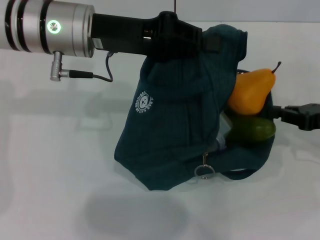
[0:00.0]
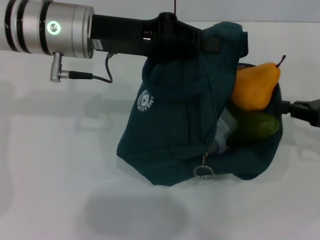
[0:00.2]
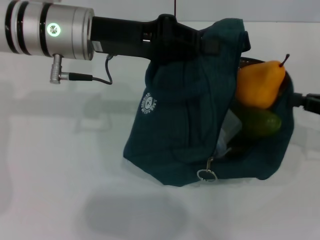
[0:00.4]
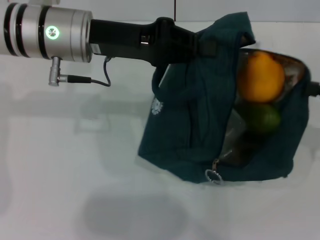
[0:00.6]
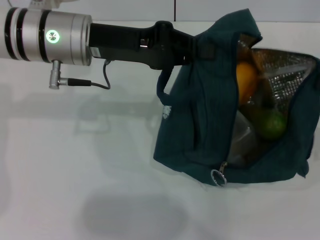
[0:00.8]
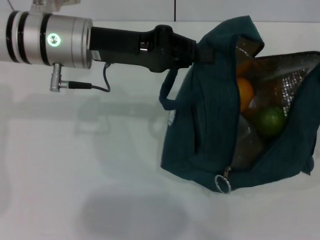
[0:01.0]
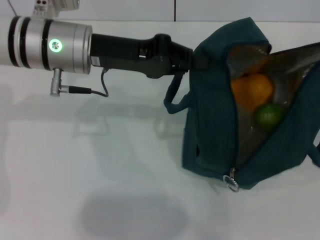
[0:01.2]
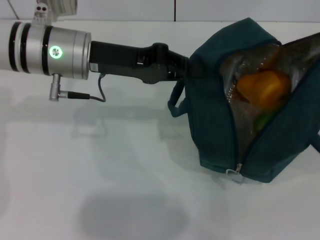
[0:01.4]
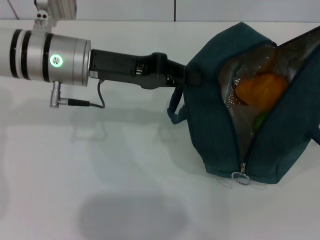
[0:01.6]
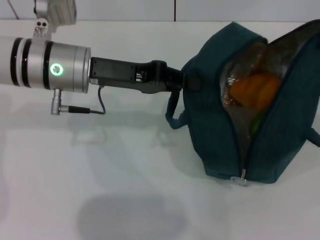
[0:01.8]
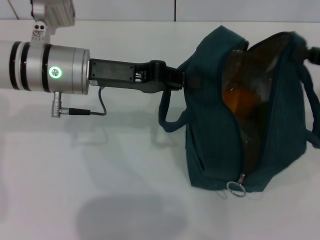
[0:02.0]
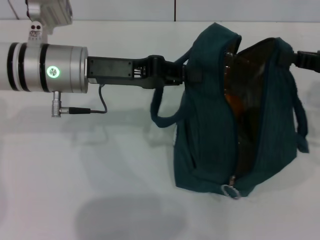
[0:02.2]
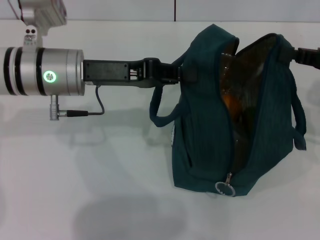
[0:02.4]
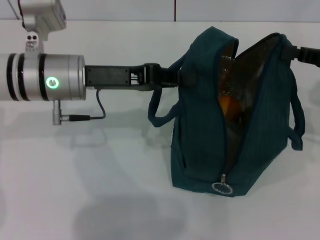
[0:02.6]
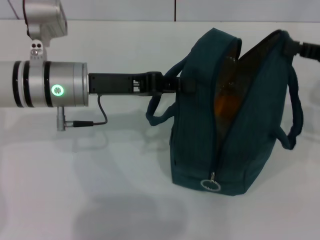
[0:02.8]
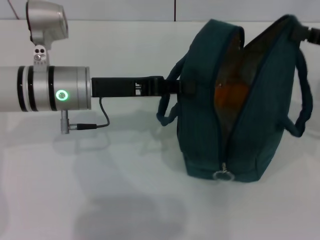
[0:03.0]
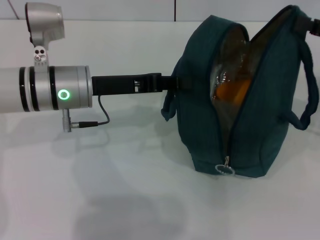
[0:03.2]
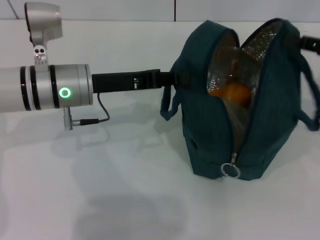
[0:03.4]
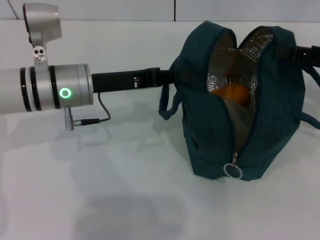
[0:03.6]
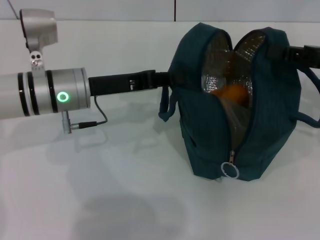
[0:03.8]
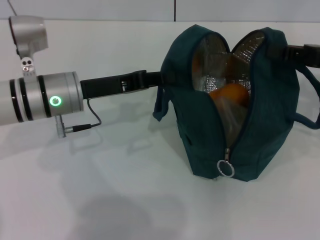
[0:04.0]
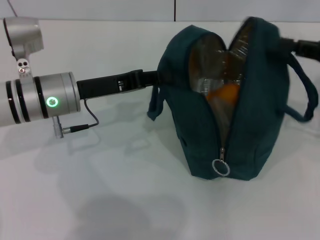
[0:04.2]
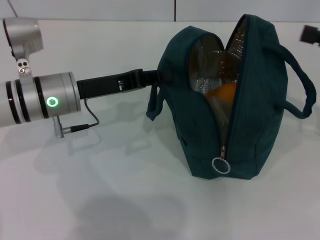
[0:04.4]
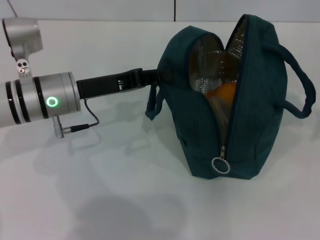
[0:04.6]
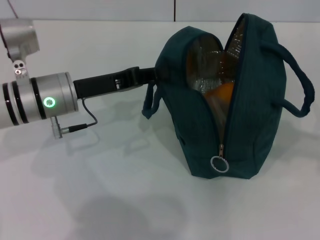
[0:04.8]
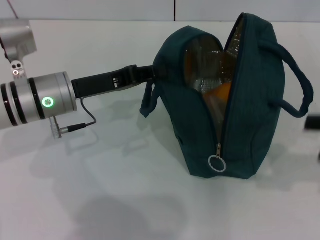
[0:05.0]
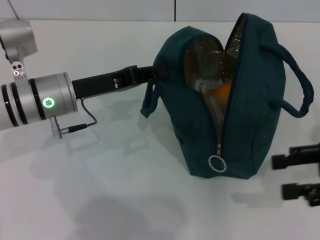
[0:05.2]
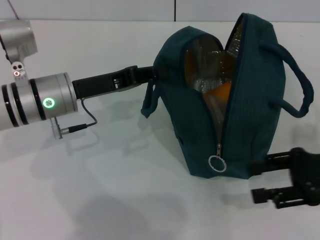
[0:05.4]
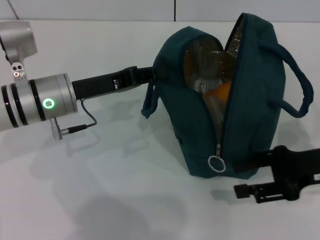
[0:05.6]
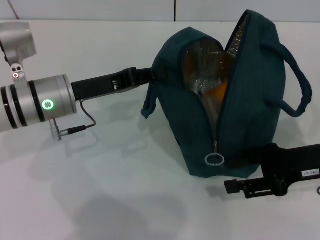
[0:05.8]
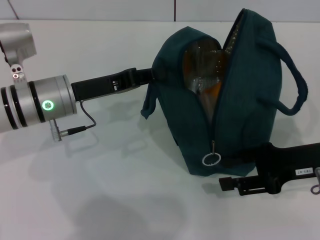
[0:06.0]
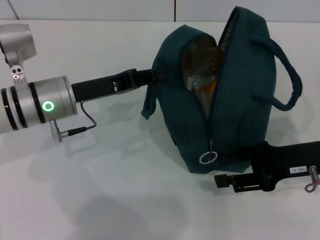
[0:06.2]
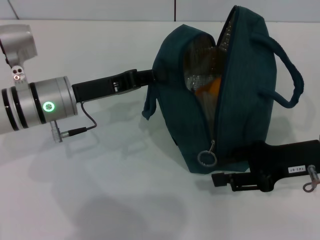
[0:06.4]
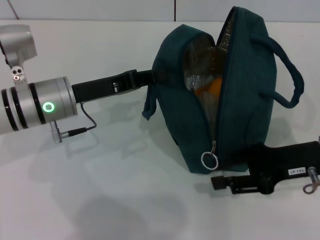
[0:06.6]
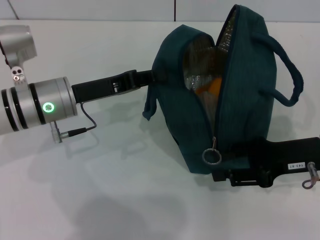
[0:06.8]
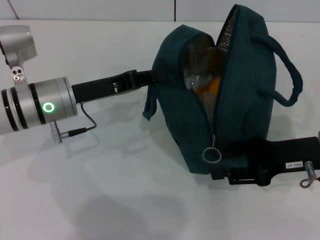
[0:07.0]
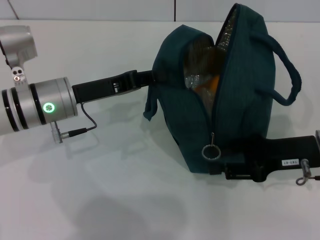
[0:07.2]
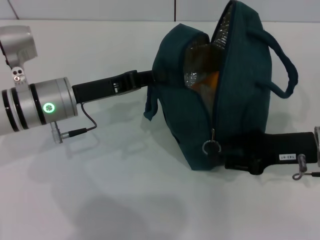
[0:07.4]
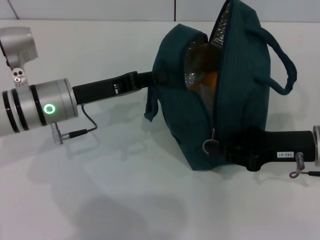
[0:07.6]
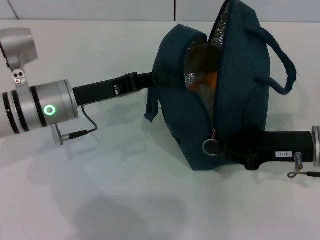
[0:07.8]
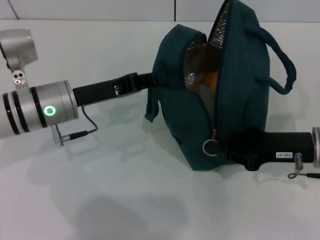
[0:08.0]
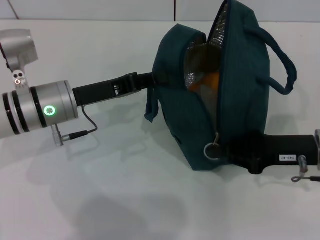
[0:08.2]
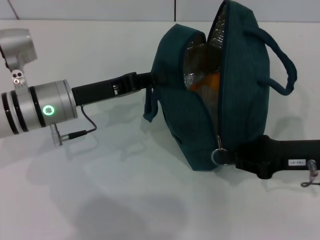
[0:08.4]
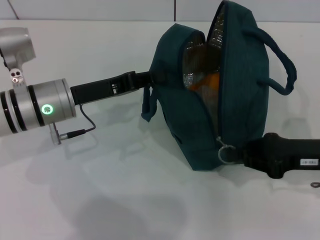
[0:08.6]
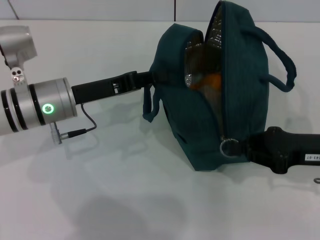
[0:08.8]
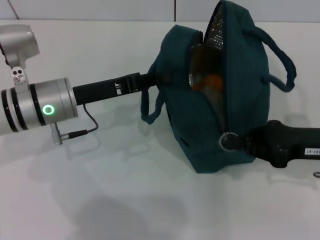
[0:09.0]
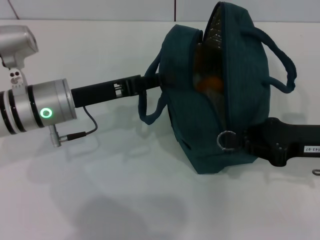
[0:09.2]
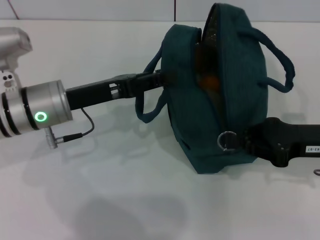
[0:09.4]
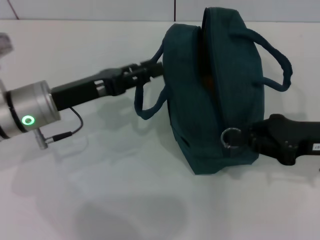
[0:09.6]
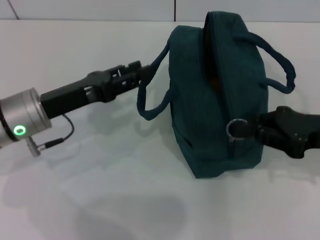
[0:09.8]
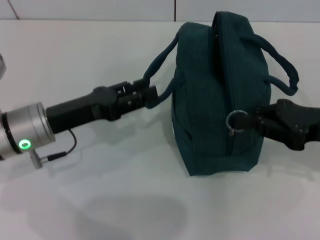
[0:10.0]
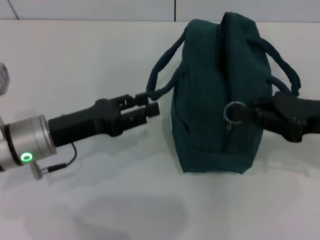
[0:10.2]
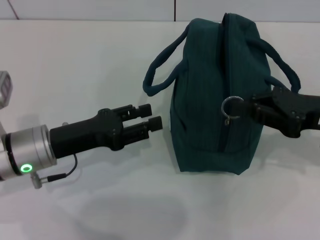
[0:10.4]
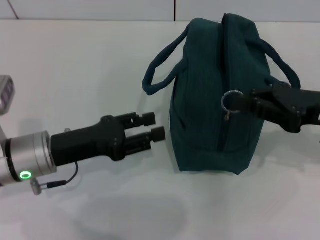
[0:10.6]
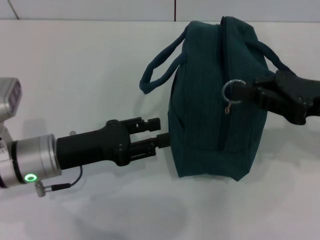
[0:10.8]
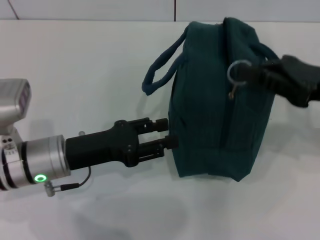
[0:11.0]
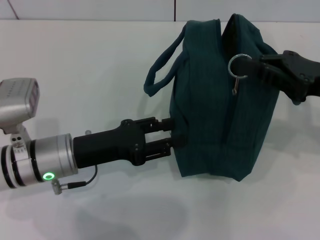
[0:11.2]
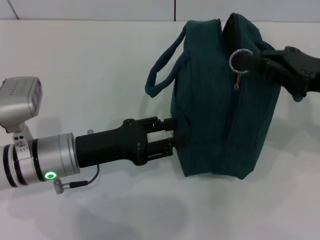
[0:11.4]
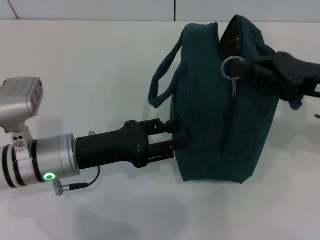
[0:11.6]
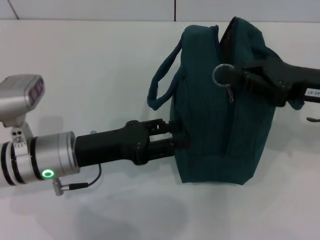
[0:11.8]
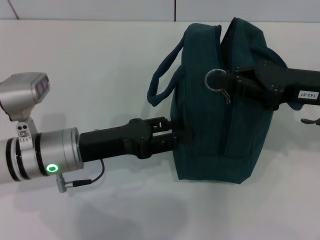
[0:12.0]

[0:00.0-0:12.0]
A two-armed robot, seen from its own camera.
Step, 0:00.0 to 0:04.2: Hold the lunch bag with your right hand.
0:00.0 to 0:01.6: The right gripper is displaced upward and to the right by about 10 cm.
0:01.6 to 0:03.0: The right gripper shifts by approximately 5 cm.
0:03.0 to 0:04.4: The grippers stay close to where they were, moving slightly.
0:04.4 to 0:06.0: The right gripper moves to the left and downward, roughly 10 cm, and opens up.
0:06.0 to 0:07.6: The grippers make only small movements.
0:07.6 to 0:09.0: The right gripper closes up.
0:09.0 to 0:10.4: The left gripper heads backward, covering about 5 cm, and opens.

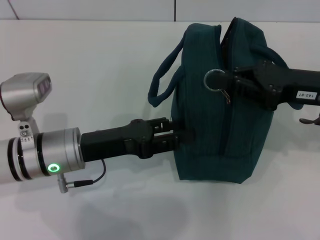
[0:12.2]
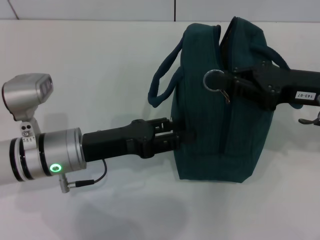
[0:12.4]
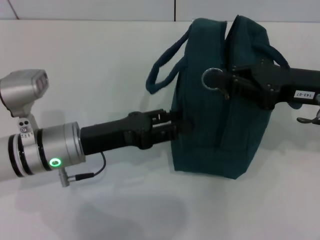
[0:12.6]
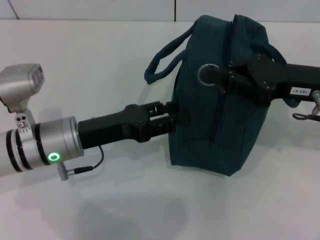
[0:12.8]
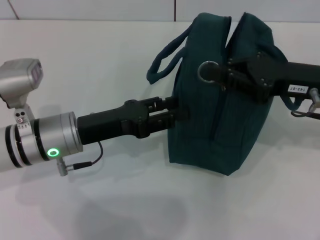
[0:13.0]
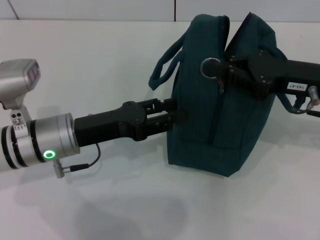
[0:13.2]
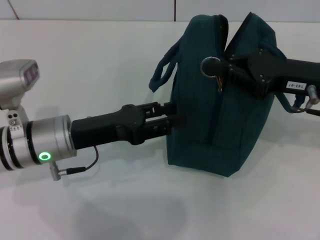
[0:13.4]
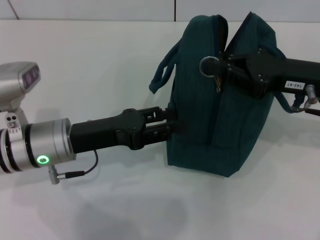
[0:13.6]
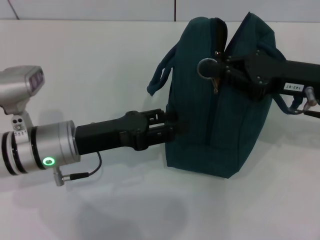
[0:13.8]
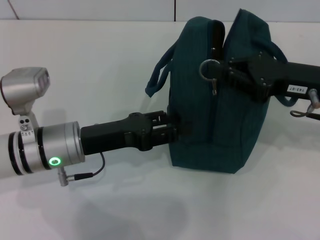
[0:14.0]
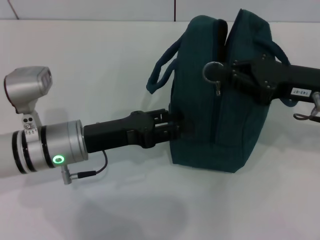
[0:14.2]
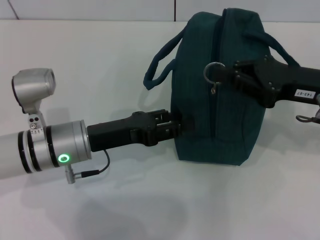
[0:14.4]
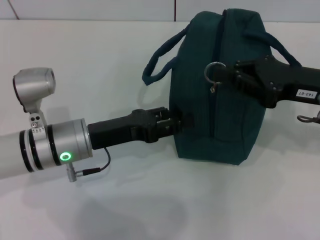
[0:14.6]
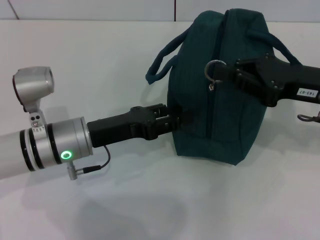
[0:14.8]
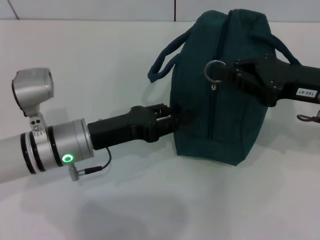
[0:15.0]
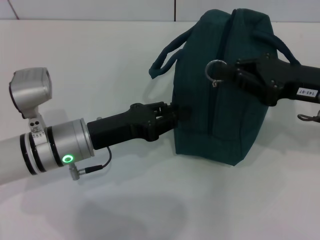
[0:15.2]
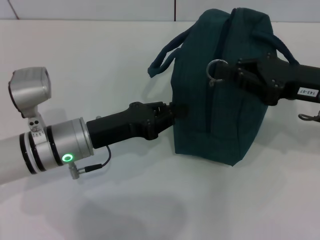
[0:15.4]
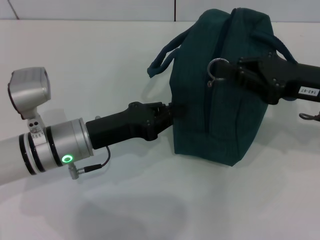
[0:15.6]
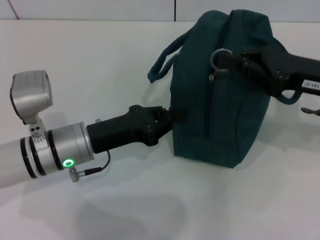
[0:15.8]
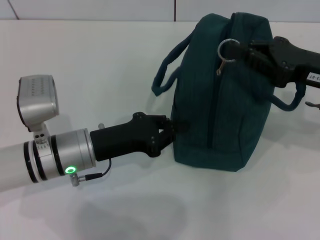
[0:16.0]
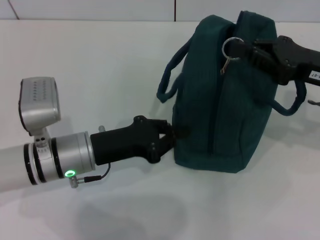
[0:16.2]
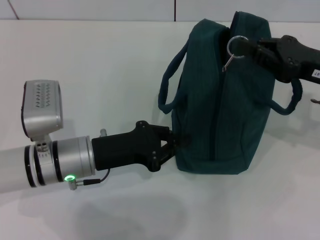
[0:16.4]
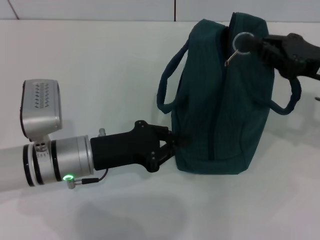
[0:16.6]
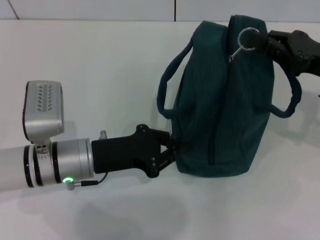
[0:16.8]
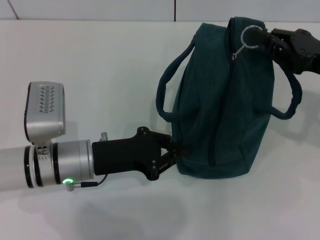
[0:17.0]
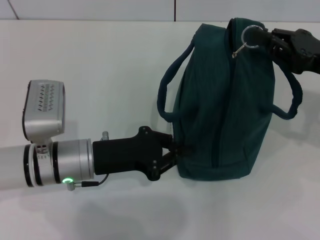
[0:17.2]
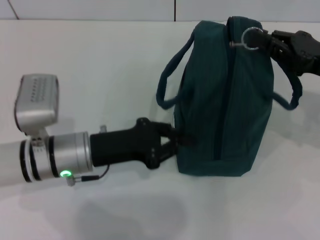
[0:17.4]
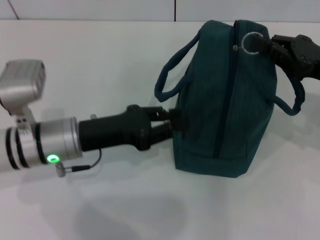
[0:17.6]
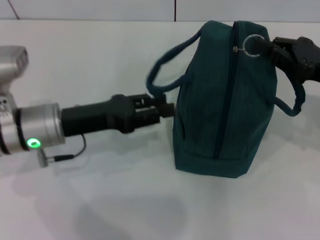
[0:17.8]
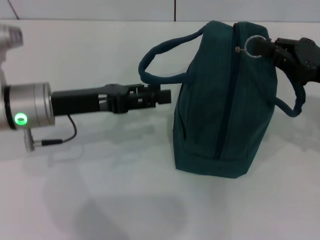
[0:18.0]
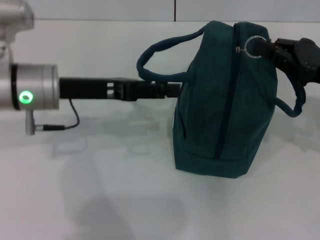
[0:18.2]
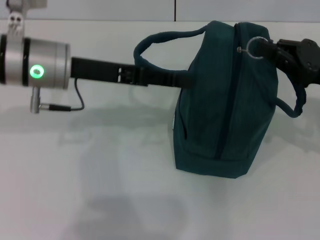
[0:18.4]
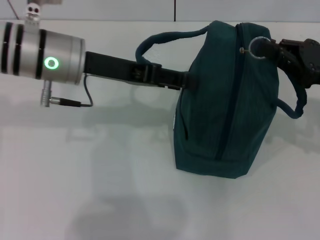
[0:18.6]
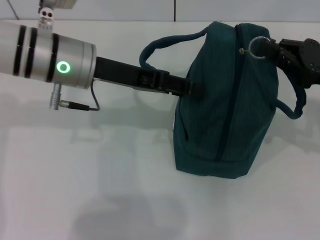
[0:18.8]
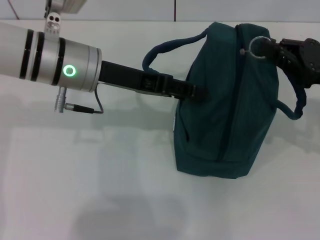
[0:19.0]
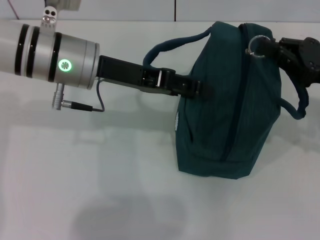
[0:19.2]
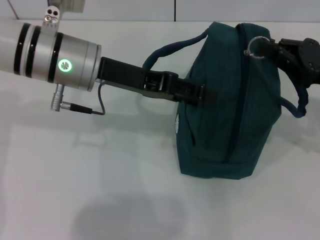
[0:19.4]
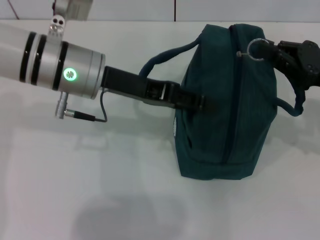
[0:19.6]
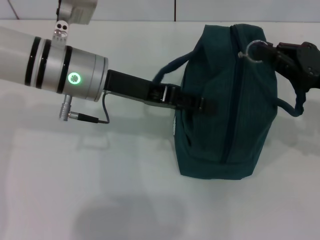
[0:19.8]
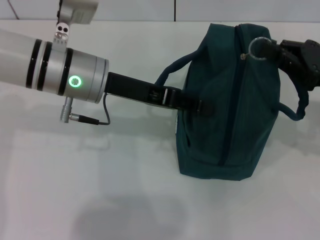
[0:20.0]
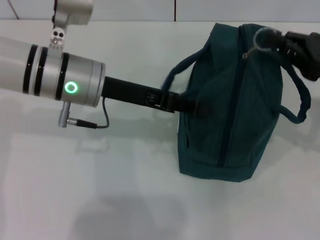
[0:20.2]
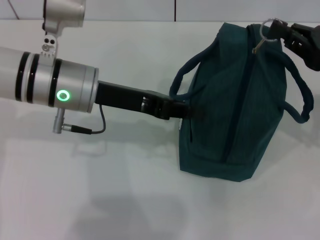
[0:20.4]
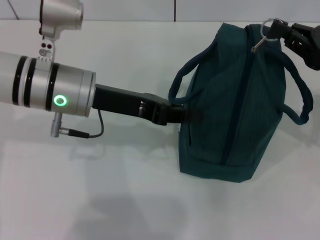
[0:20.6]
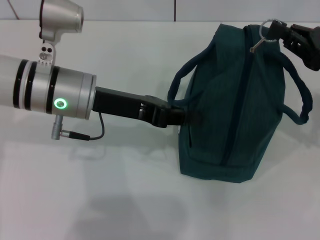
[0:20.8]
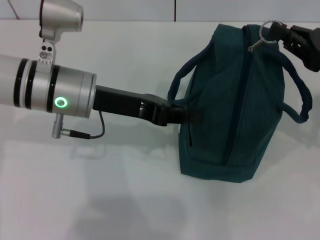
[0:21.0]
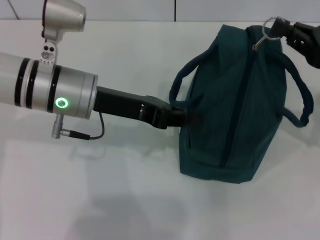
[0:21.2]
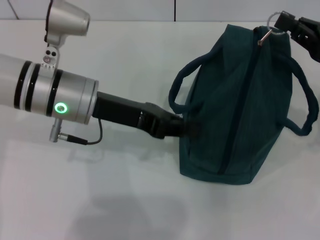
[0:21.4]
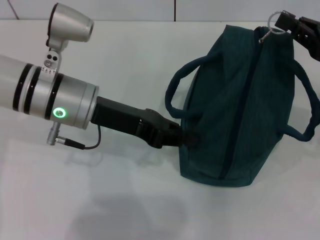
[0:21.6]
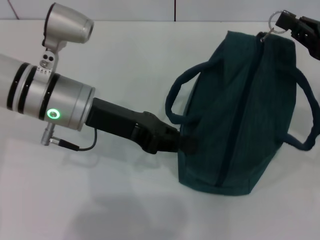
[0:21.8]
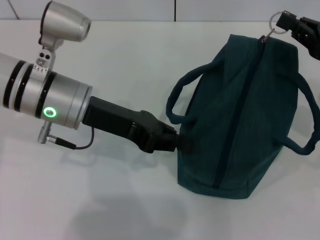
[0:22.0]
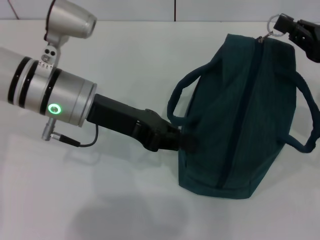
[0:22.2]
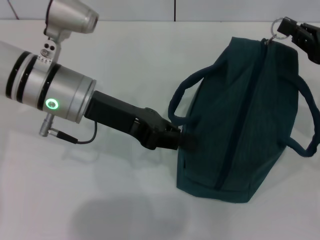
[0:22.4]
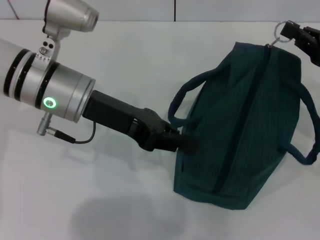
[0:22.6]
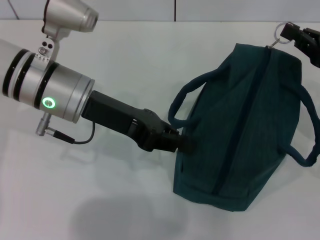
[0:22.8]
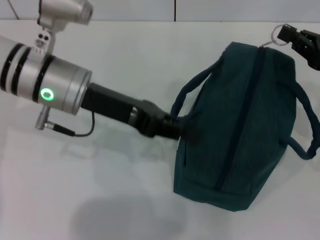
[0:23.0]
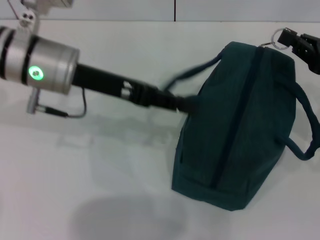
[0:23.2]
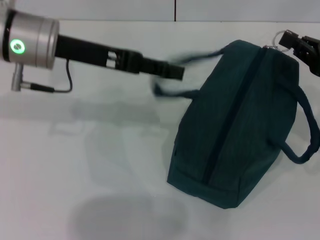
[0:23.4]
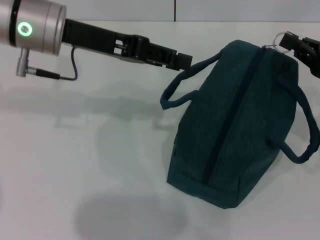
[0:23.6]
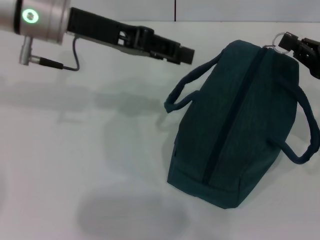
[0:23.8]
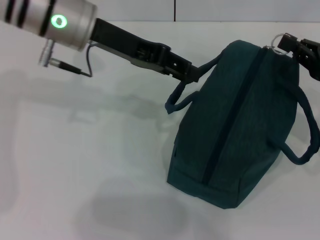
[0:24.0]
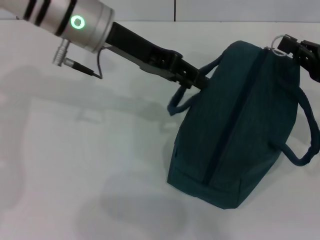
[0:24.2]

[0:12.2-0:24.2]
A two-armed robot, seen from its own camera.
0:12.2 to 0:15.2: The grippers stay close to where they were, moving slightly.
0:15.2 to 0:16.6: The left gripper closes up.
0:16.6 to 0:18.2: The left gripper moves upward and forward, about 10 cm, and opens its fingers.
0:18.2 to 0:19.8: The left gripper heads to the right, covering roughly 5 cm.
0:19.8 to 0:21.2: The left gripper closes.
0:22.6 to 0:24.2: The left gripper heads forward and upward, covering about 10 cm, and opens.
